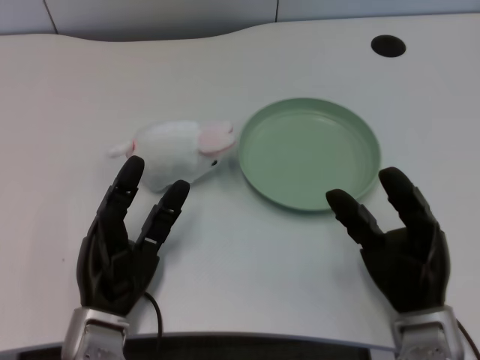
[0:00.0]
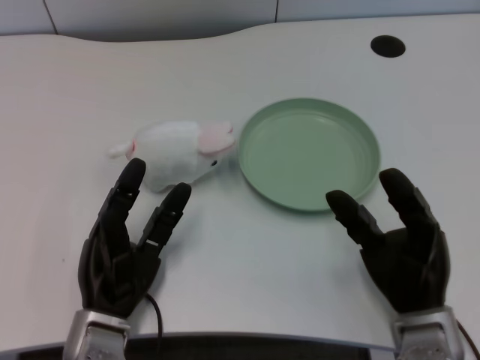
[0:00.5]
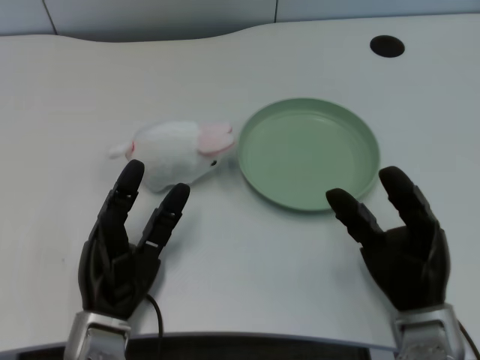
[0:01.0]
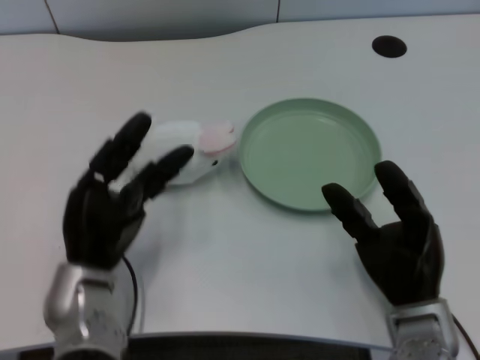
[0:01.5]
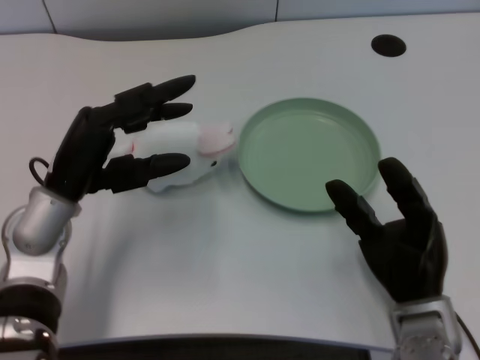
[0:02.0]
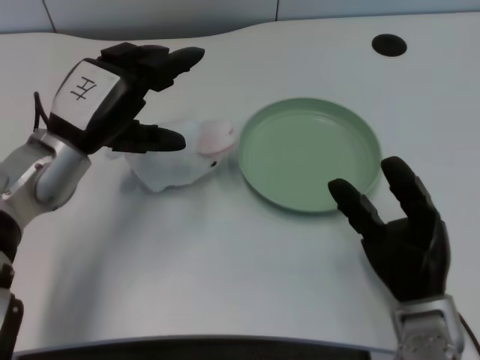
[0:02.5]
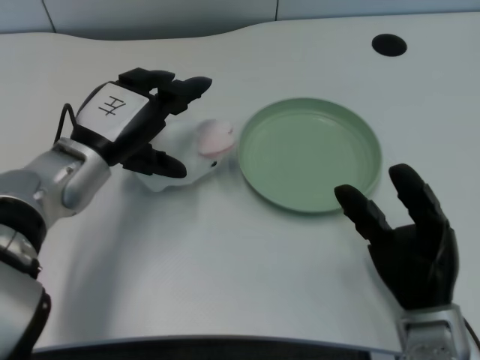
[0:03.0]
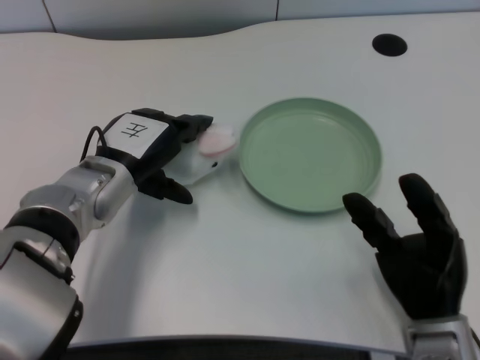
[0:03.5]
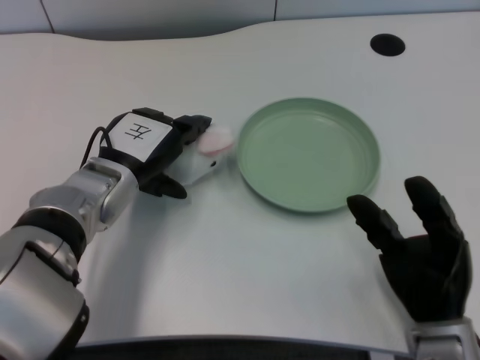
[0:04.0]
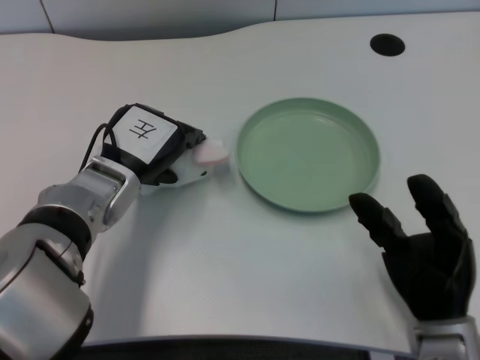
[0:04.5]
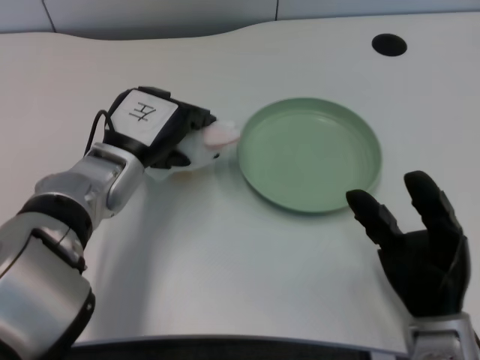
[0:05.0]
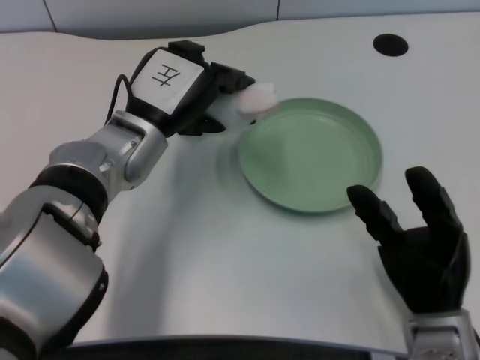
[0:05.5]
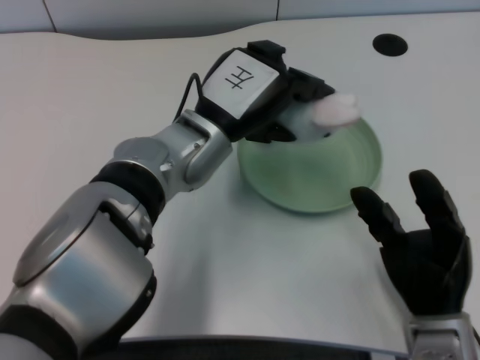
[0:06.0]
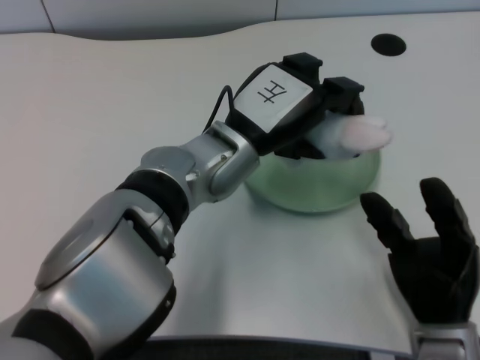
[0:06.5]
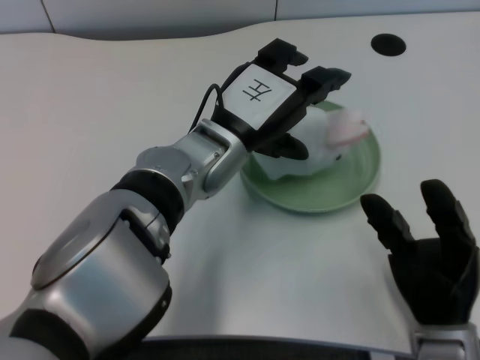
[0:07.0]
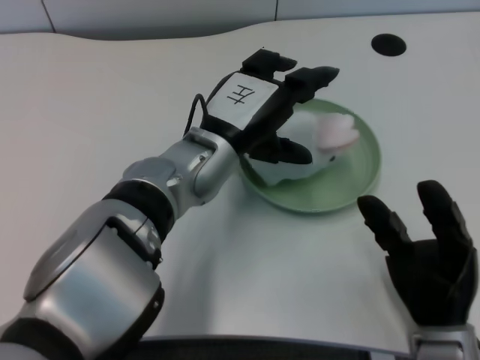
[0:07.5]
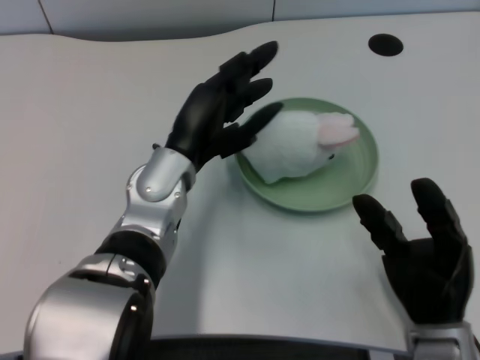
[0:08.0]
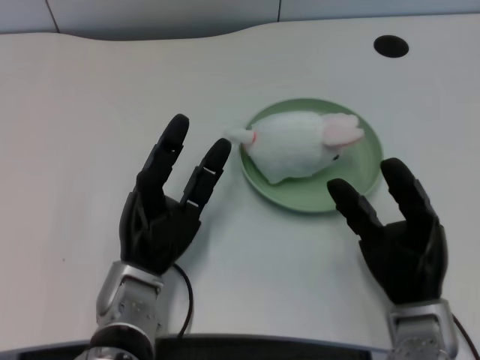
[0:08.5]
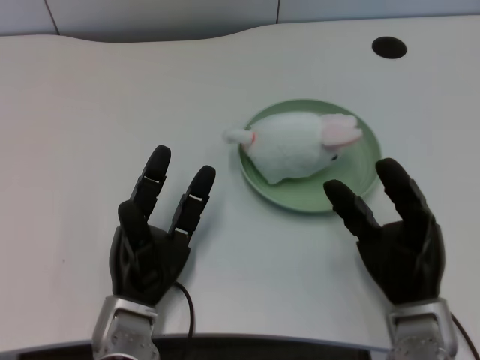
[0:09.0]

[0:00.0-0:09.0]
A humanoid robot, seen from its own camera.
Task of the whole recording: pick up the rabbit doll from the table and place it on the plate.
Step, 0:01.5 to 0:05.0: Grasp the rabbit doll with the left gripper.
Step, 0:05.5 to 0:07.0: Place the rabbit doll into the plate with the left gripper.
0:02.0 to 0:04.5: The left hand shifts by approximately 5 cm.
0:04.5 to 0:07.0: The left hand goes some 10 cm to the right.
0:07.0 to 0:09.0: The left hand moves downward, backward and to the left, roughly 20 cm.

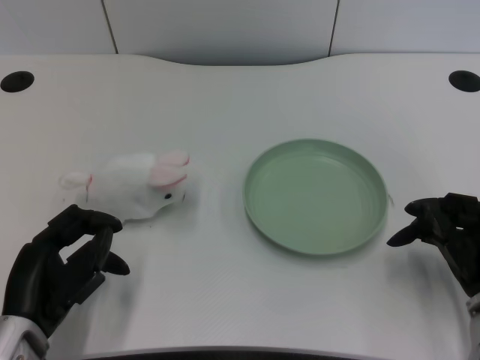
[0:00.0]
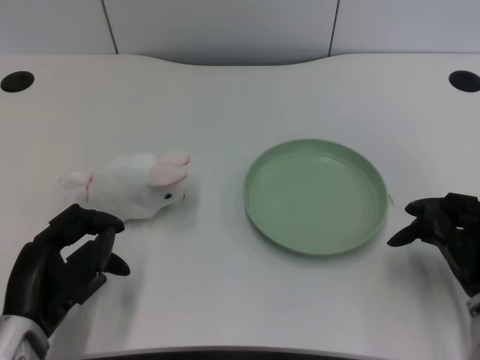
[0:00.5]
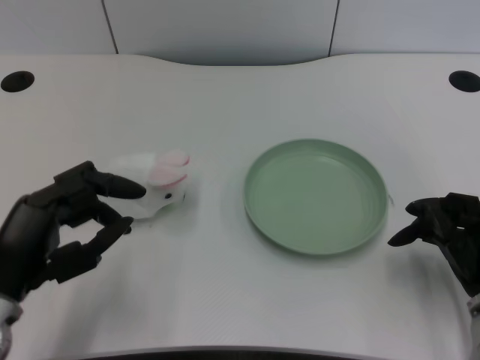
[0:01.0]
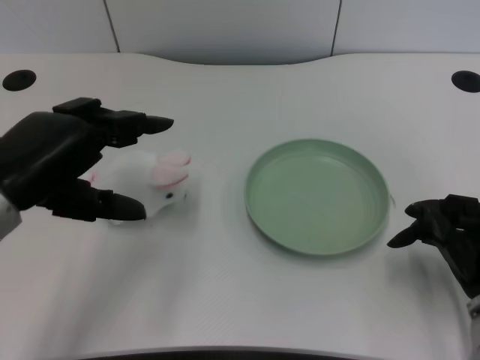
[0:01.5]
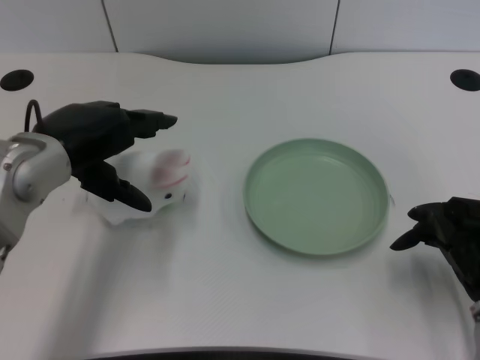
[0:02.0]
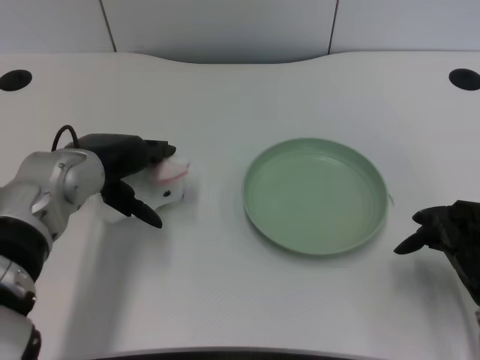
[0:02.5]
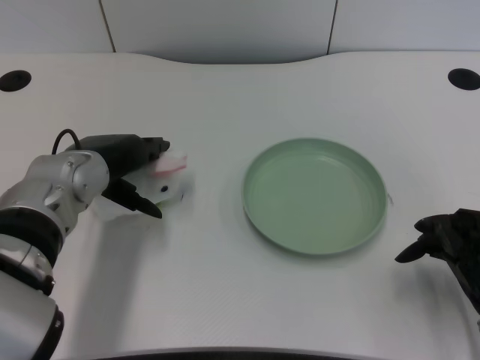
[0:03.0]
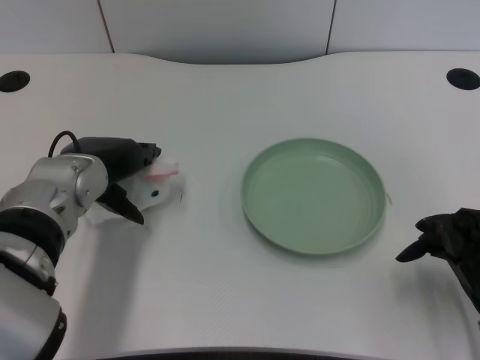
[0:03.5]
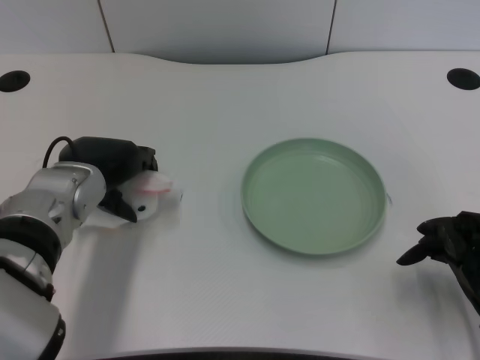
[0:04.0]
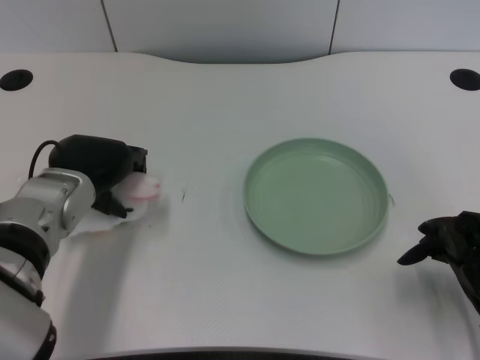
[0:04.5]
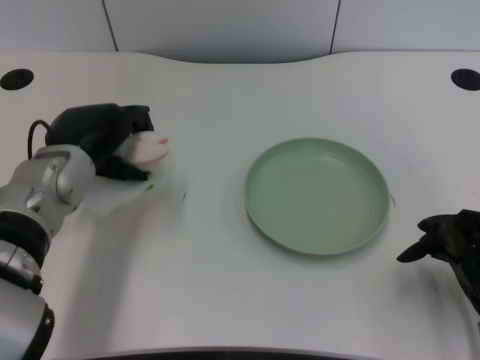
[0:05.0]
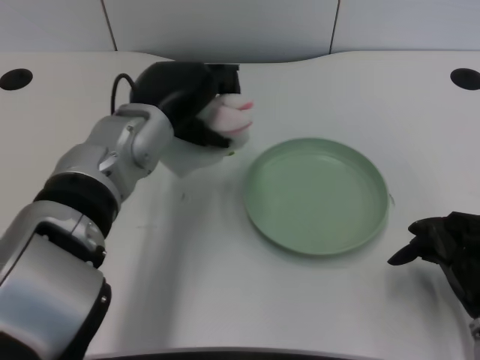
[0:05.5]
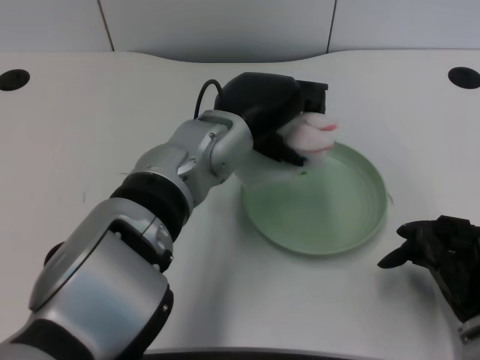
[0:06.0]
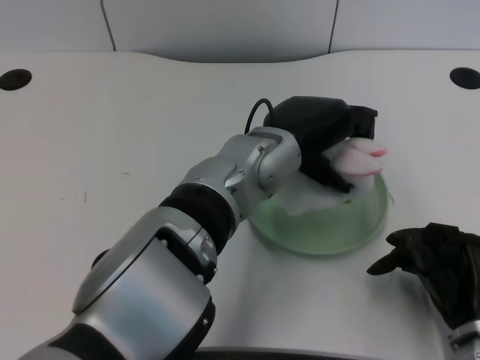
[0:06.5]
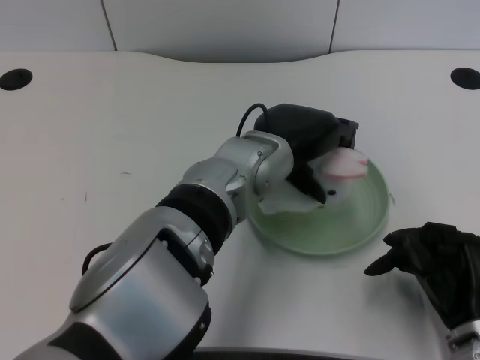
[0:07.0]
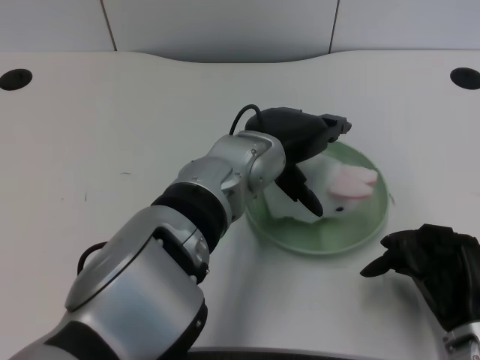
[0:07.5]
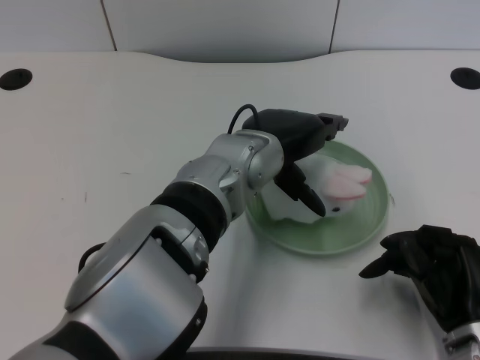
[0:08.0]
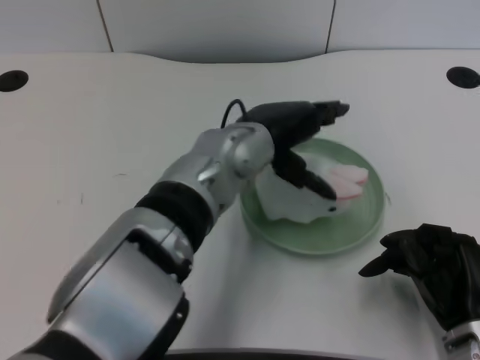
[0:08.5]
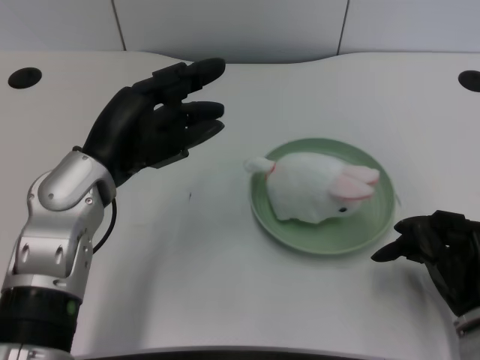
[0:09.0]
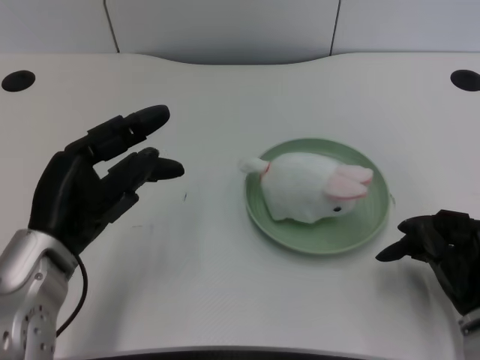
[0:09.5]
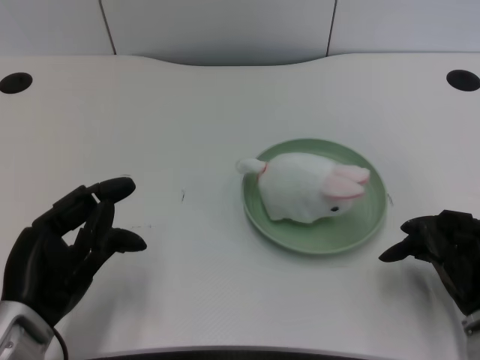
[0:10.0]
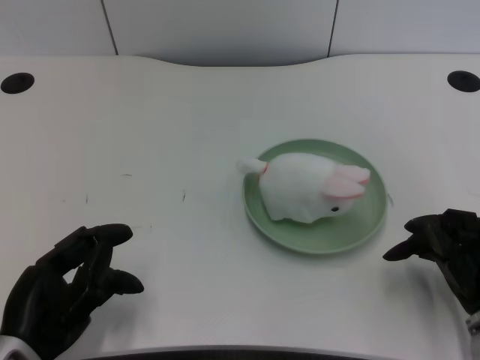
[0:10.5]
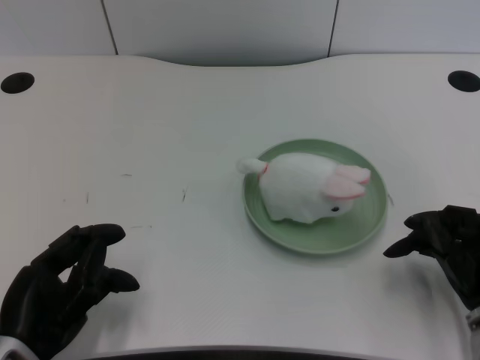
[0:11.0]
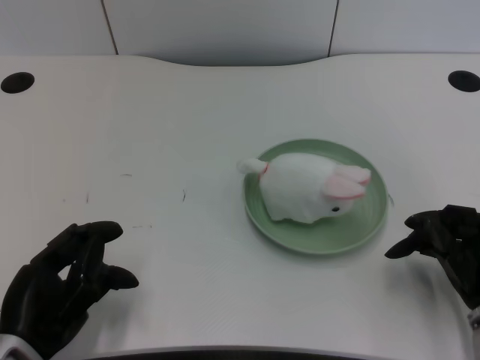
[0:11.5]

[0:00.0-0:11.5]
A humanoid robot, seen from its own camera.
Task of the whole recording: pick up the rabbit doll from the table and place it on the plate.
Step, 0:01.0 to 0:04.5: Grasp the rabbit doll with the left gripper.
Step, 0:05.5 to 0:07.0: Place the rabbit doll into the plate with the left gripper.
0:02.0 to 0:04.0: The left hand shifts roughly 5 cm downward.
0:04.0 to 0:06.0: The left hand heads to the right, covering approximately 15 cm.
0:07.5 to 0:09.5: The left hand moves to the left, about 20 cm.
0:09.5 to 0:11.5: The left hand heads backward and downward, covering approximately 10 cm.

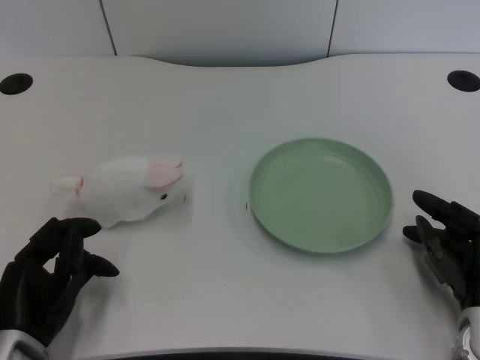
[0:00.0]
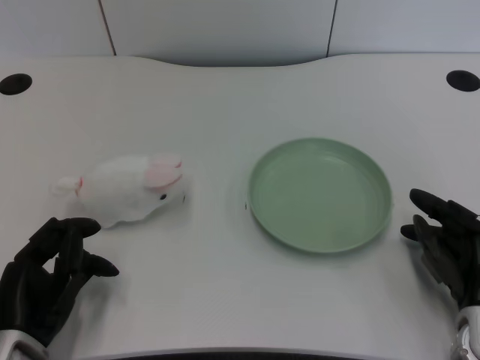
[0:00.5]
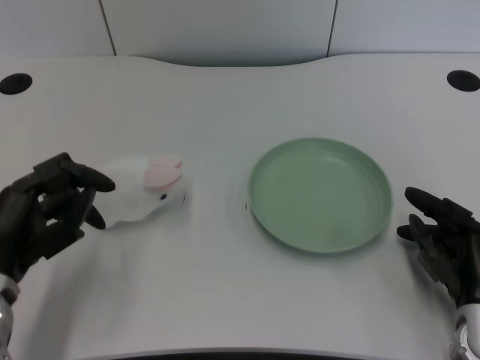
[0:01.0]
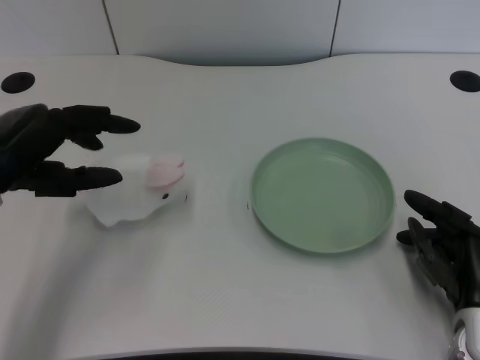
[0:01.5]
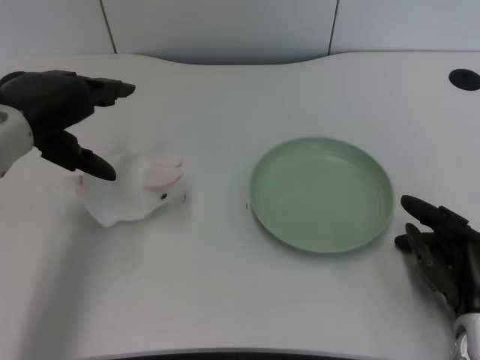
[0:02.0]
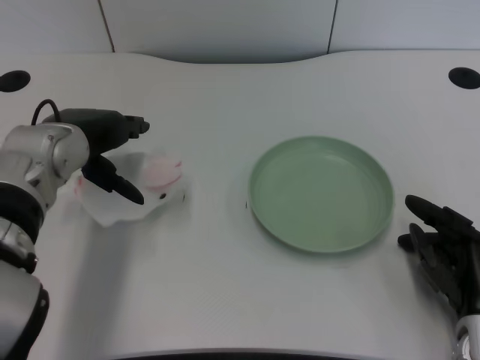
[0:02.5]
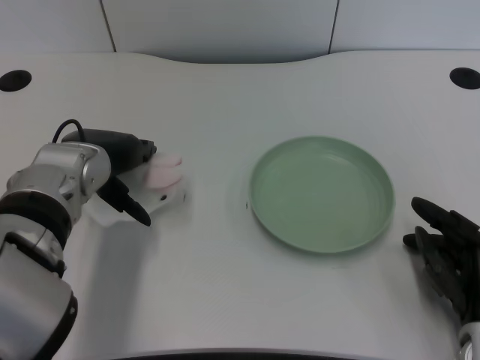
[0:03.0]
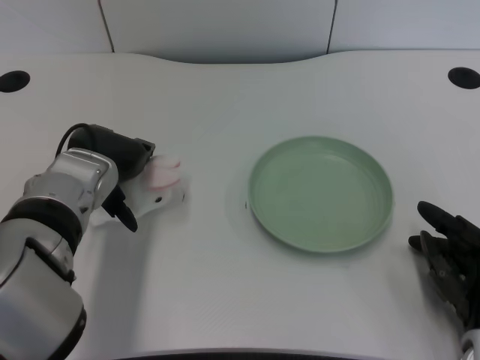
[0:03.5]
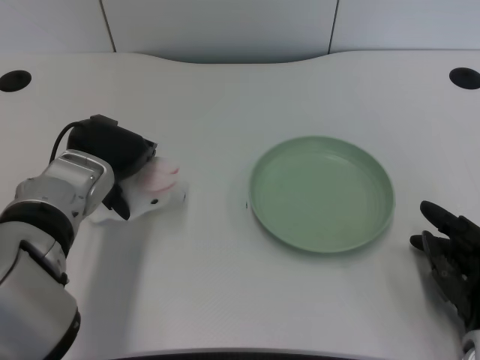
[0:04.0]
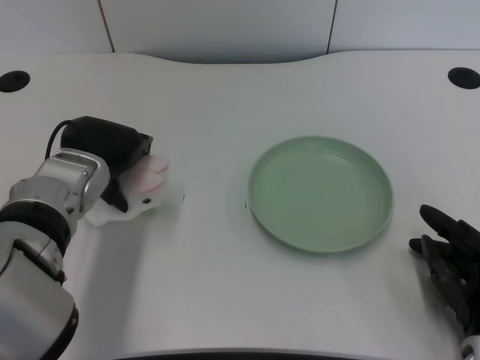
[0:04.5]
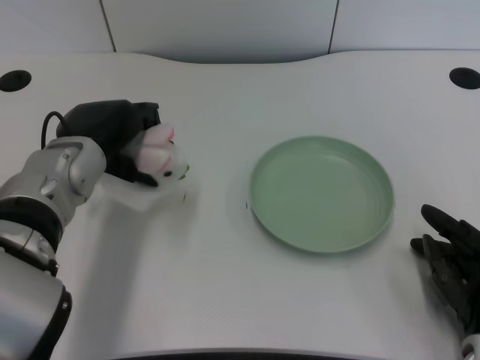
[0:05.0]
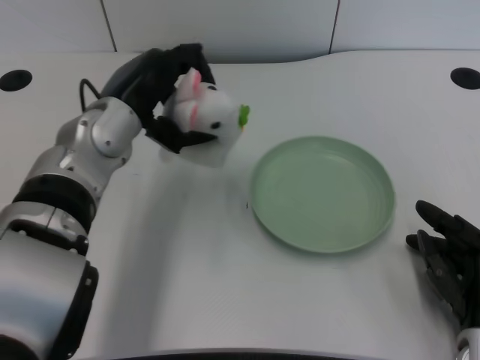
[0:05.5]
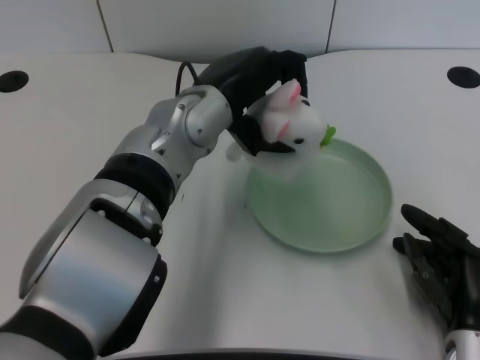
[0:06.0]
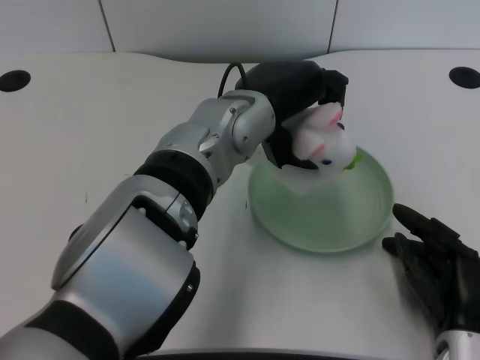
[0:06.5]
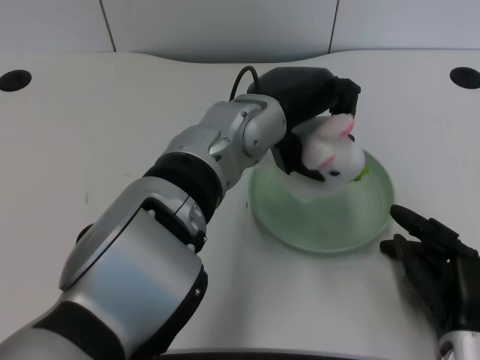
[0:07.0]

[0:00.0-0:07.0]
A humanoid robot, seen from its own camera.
Task of the whole recording: pick up the rabbit doll from the table and place it on the plate.
Step, 0:01.0 to 0:04.5: Grasp the rabbit doll with the left gripper.
0:02.0 to 0:03.5: The left hand heads downward and to the right, covering roughly 10 cm.
0:05.0 to 0:07.0: The left hand travels to the right by some 15 cm.
